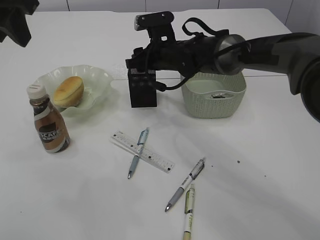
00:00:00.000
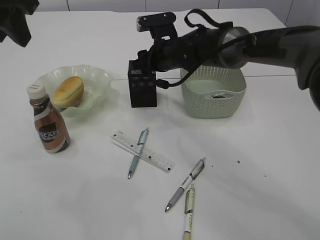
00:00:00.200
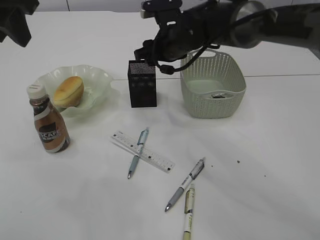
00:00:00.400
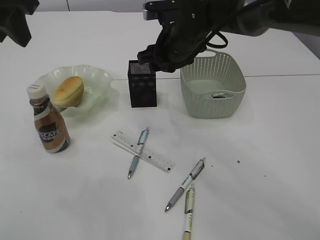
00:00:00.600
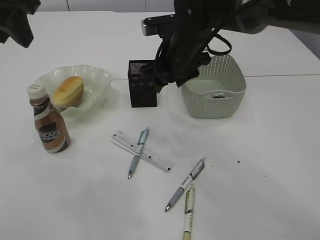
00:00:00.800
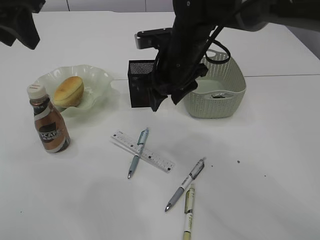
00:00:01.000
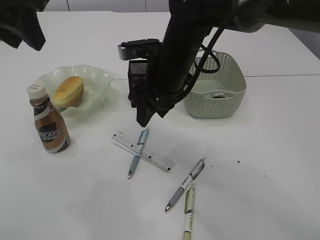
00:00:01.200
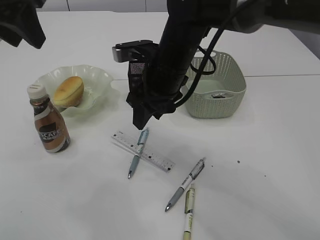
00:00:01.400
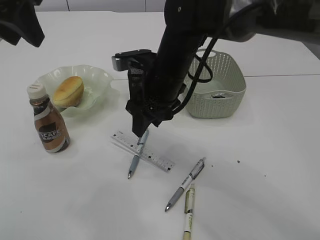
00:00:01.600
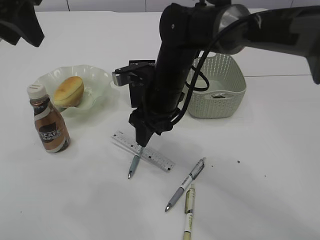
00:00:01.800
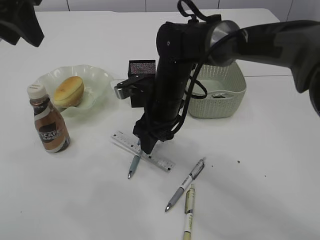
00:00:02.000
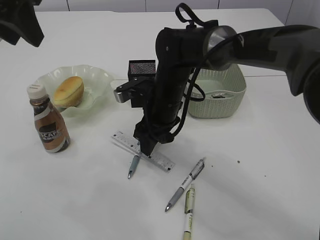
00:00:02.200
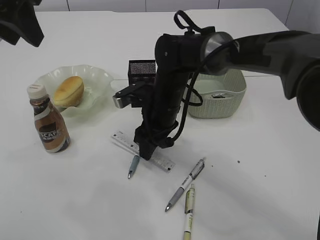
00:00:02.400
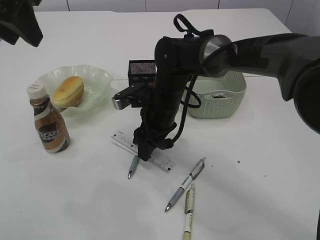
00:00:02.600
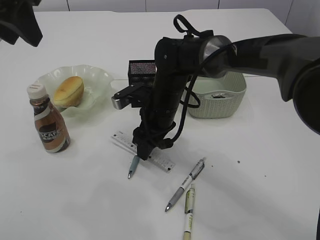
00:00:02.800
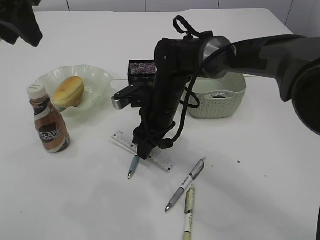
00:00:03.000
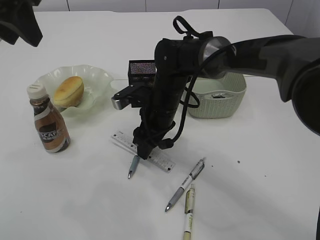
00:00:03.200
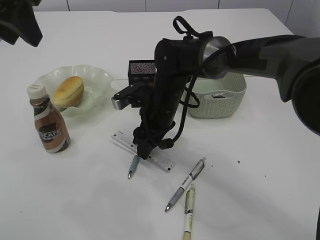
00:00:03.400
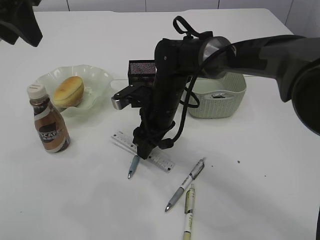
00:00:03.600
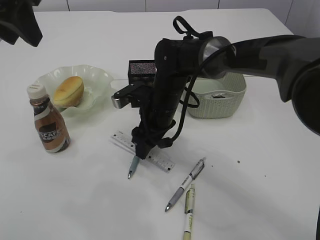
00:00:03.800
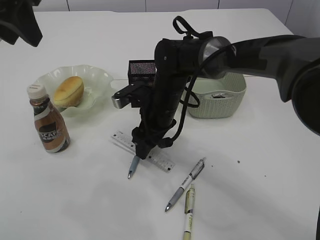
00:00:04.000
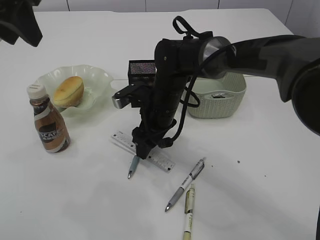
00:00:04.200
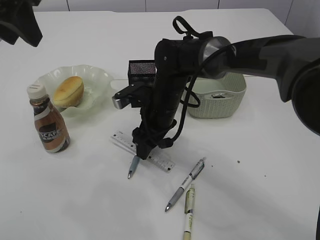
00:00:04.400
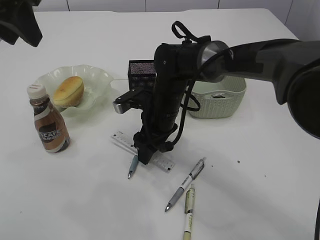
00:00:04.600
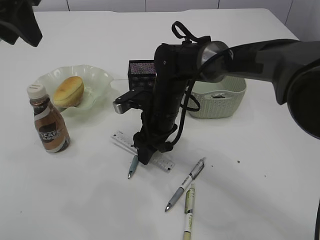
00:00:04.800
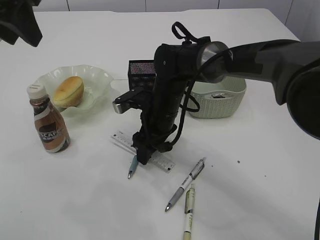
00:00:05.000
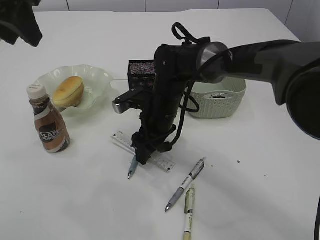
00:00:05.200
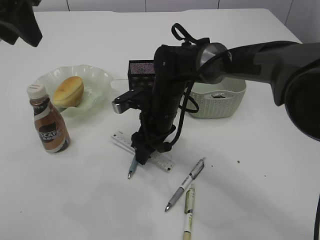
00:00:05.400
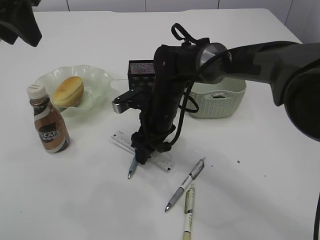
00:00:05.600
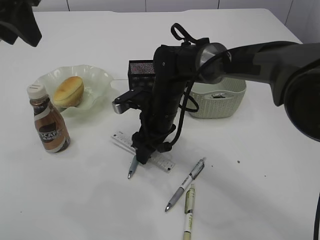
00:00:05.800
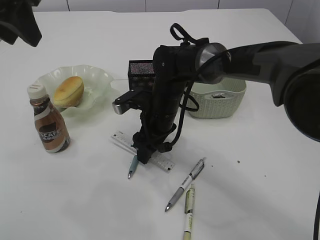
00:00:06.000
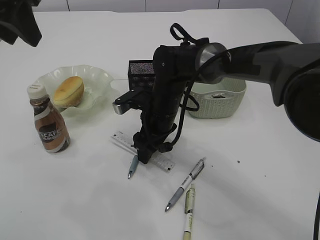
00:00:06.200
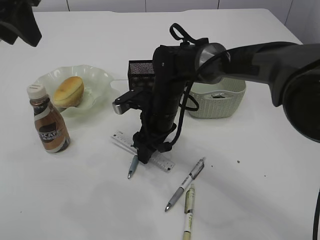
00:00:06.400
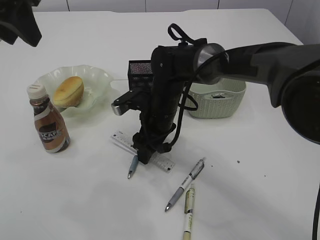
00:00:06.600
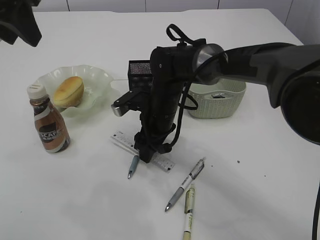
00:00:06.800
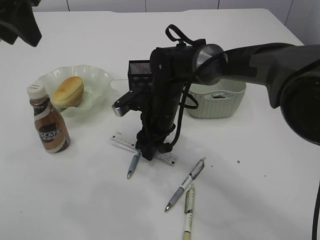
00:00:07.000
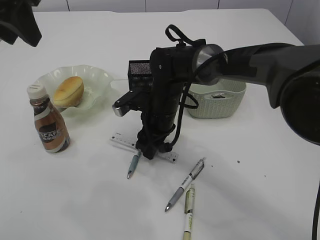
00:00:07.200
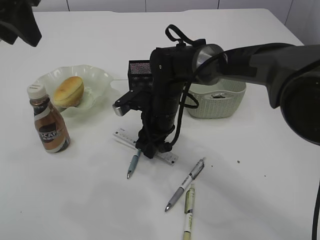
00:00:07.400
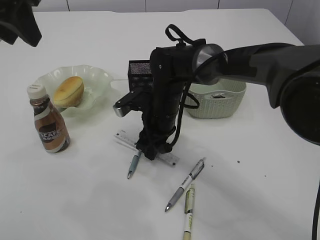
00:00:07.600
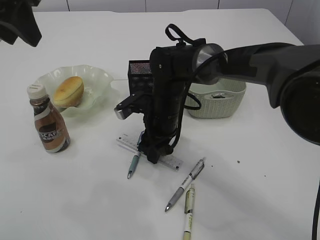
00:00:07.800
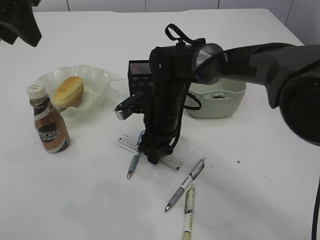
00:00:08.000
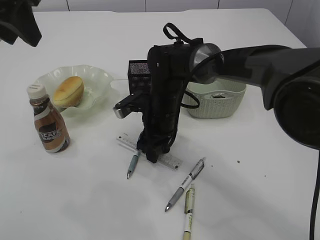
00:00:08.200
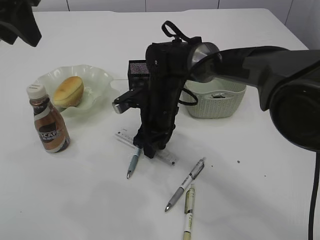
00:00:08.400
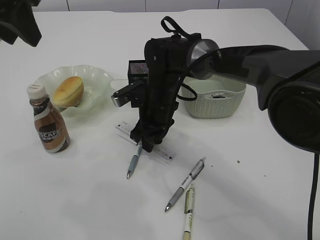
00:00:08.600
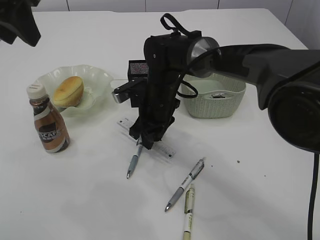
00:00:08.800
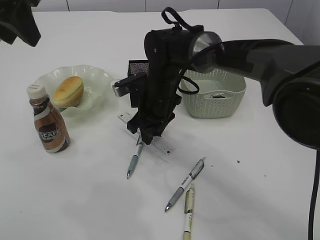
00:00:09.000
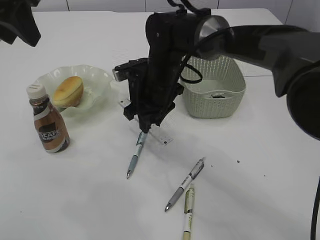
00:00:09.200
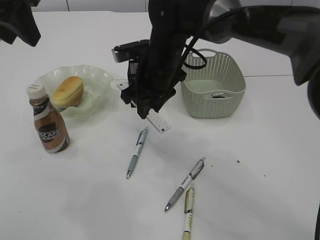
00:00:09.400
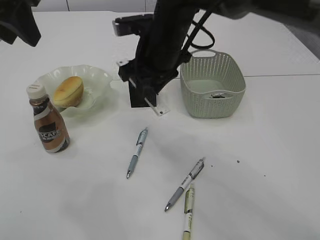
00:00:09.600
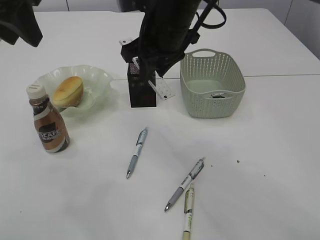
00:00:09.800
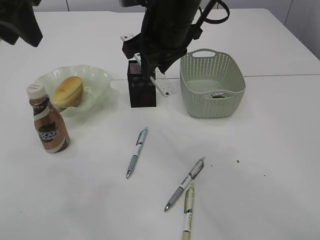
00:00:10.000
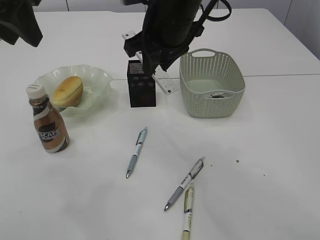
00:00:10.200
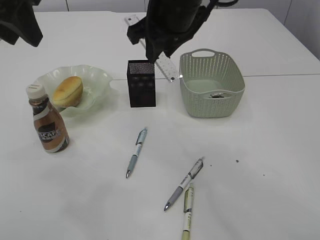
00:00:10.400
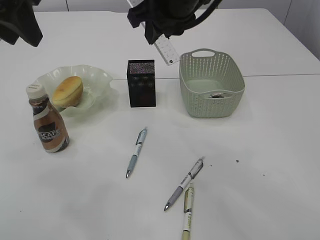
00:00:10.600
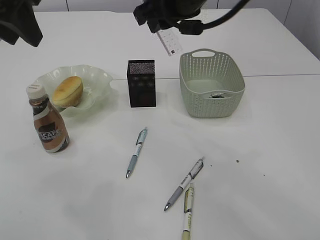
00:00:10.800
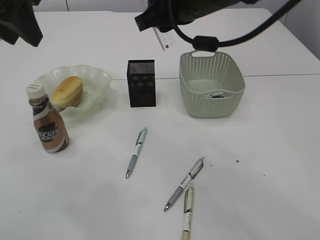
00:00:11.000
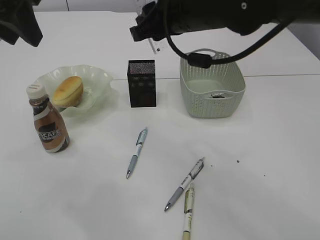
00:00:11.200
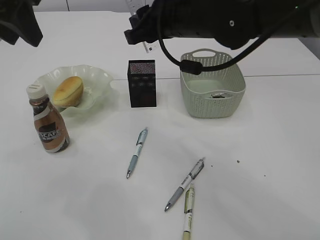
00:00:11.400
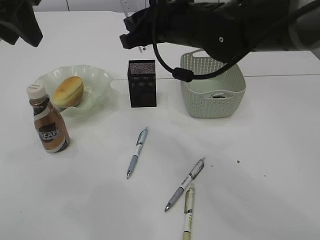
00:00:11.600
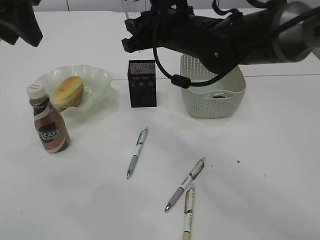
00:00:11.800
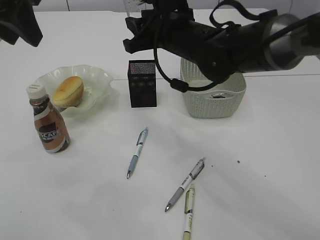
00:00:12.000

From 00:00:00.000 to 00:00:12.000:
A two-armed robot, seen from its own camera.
Step, from 00:00:00.400 to 00:00:09.000: pick up the ruler.
From 00:00:00.000 to 00:00:01.600: The right gripper shifts about 10 cm backward.
From 00:00:01.600 to 00:00:03.000: The right gripper heads downward, covering roughly 10 cm.
From 00:00:03.000 to 00:00:06.000: The two grippers keep their place.
From 00:00:06.000 to 00:00:07.600: The right gripper closes.
From 00:00:07.600 to 00:00:09.000: There are only small adjustments of the grippers.
From 00:00:09.000 to 00:00:10.400: The right gripper heads upward, covering some 20 cm.
From 00:00:10.400 to 00:00:12.000: The right gripper shifts roughly 5 cm downward.

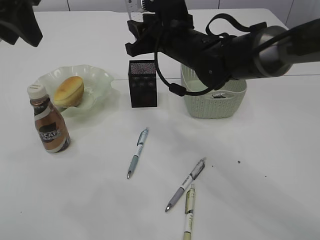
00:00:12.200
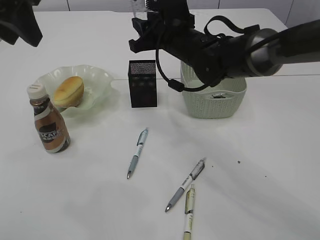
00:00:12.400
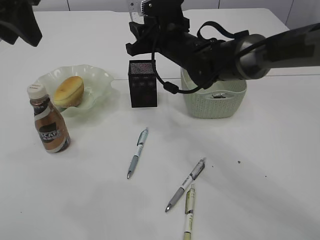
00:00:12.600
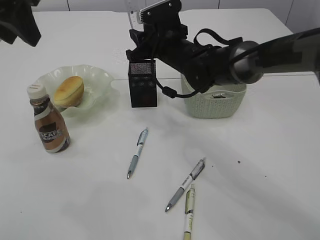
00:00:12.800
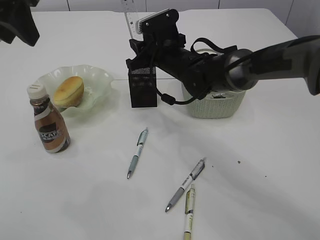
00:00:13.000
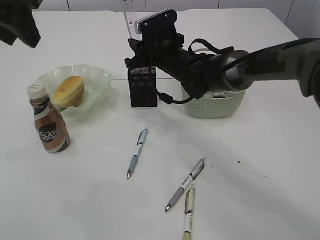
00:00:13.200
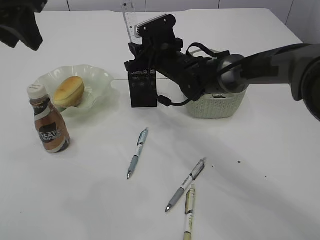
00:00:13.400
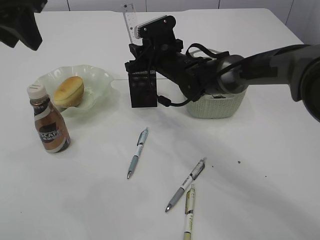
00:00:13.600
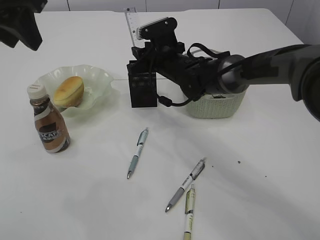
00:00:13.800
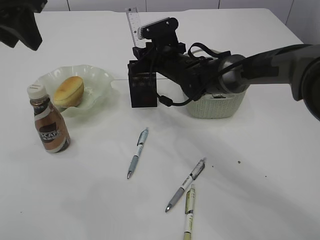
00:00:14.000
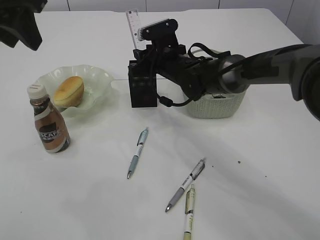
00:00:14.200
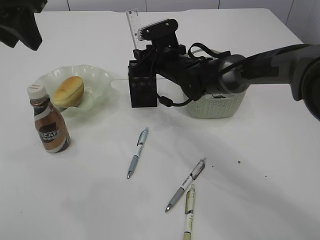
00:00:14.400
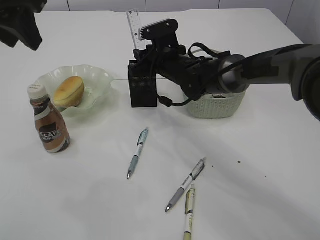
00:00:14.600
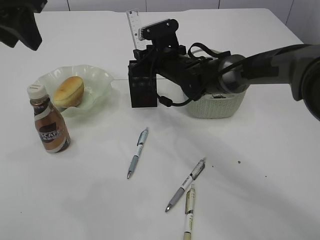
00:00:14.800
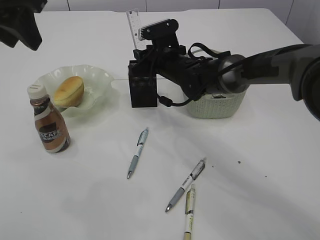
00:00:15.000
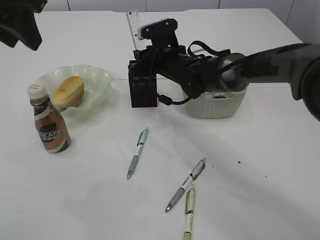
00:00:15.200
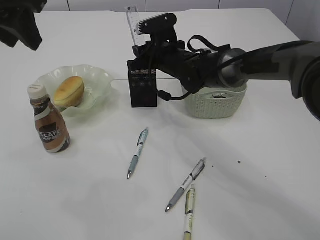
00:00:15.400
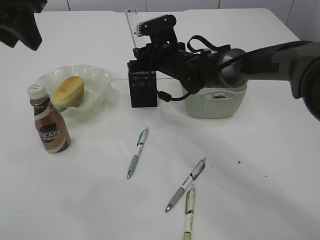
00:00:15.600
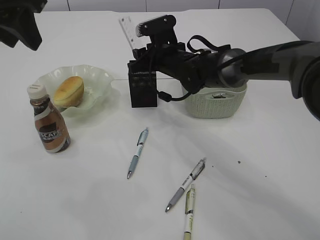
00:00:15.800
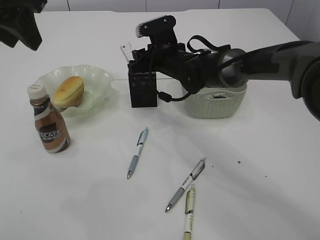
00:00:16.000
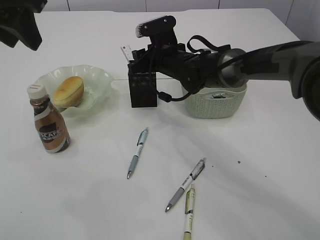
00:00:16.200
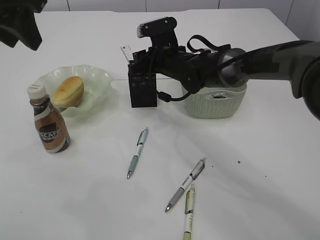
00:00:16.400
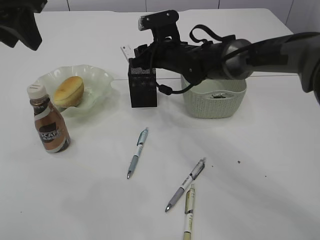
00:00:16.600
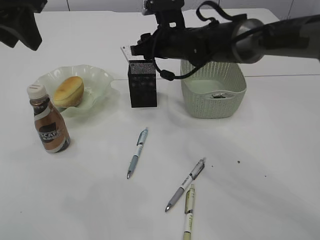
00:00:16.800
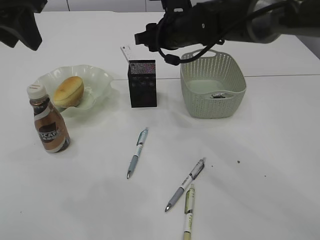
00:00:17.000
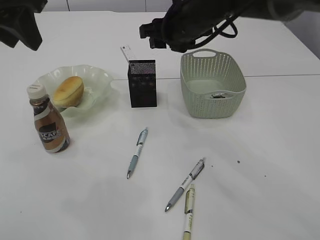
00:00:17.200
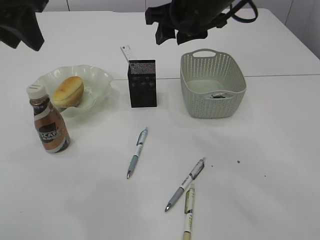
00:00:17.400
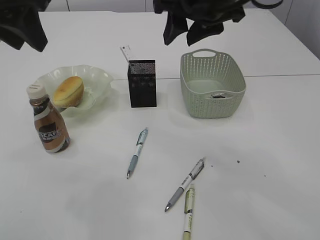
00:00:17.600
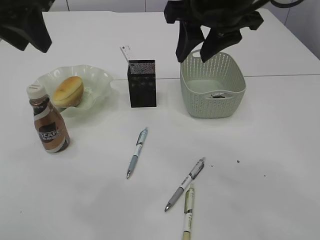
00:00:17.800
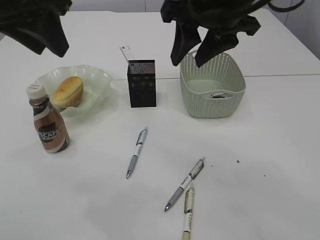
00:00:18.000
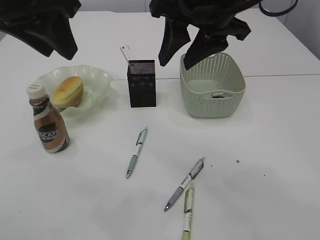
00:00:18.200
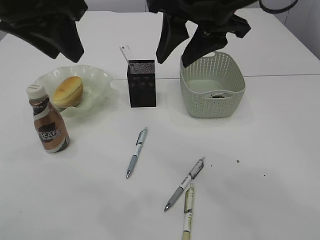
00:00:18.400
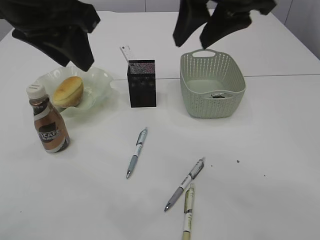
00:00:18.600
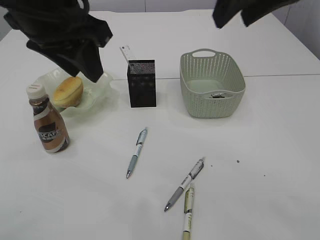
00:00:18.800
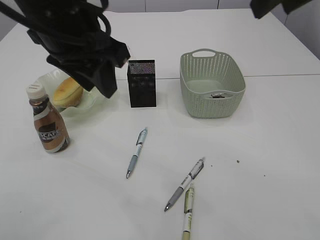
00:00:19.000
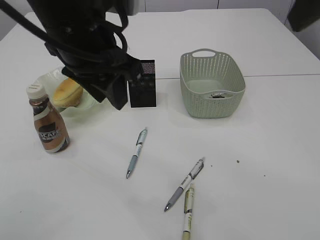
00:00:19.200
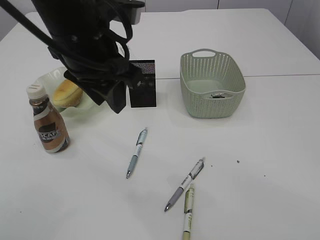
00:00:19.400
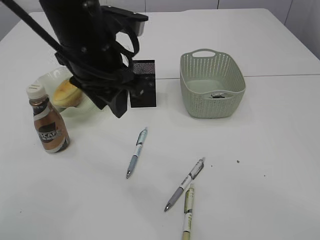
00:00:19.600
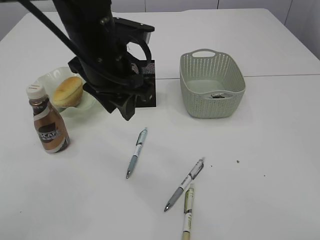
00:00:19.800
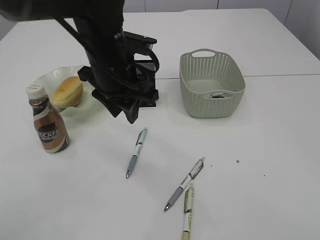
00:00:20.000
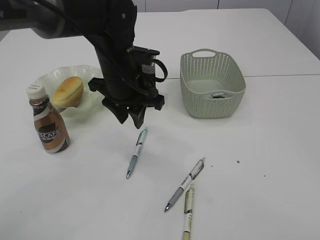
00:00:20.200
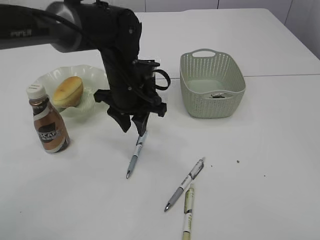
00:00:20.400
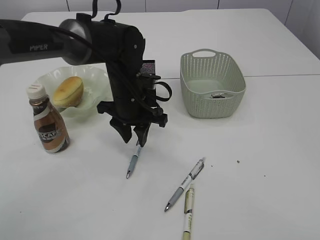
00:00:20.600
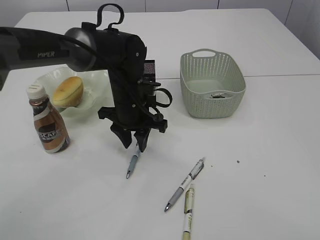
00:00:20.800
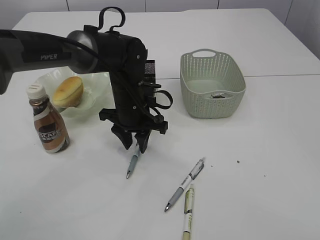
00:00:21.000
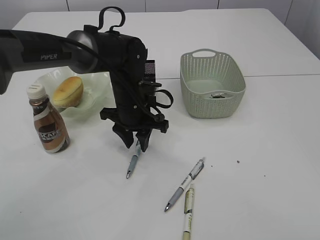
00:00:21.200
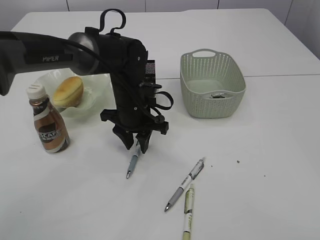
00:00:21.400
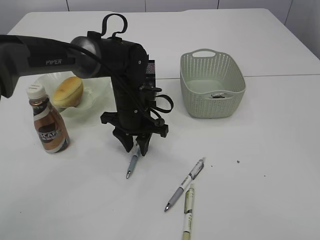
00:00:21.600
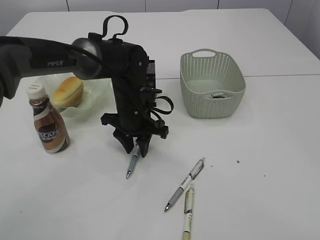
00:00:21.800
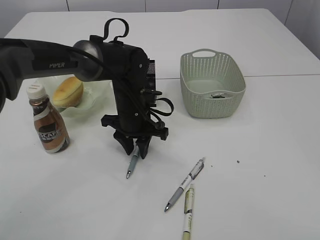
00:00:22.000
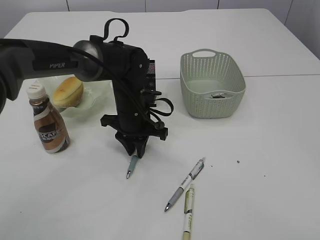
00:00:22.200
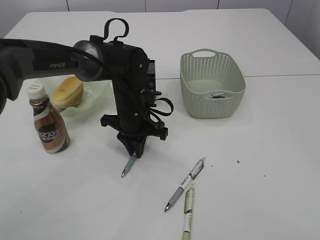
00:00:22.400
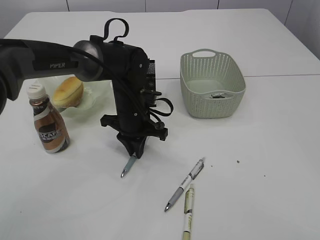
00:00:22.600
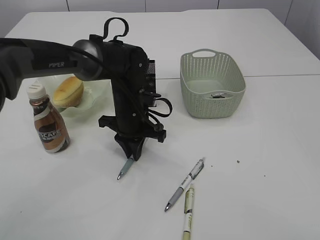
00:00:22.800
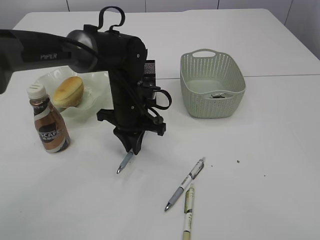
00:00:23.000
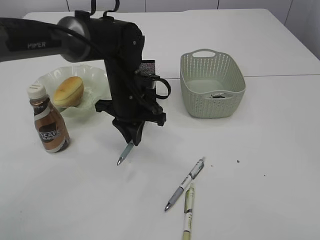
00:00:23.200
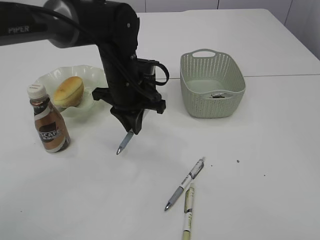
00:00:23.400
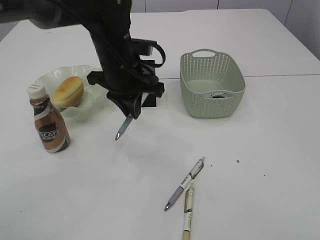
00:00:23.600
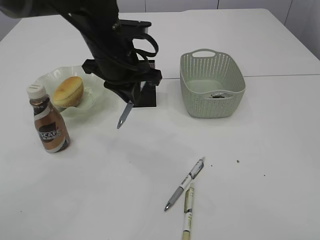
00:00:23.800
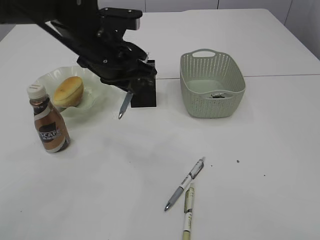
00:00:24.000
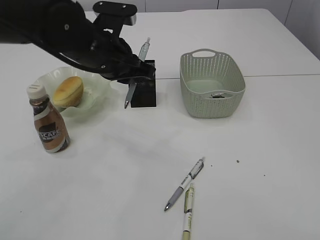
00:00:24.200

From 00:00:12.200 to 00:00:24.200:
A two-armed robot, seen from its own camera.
Step, from 00:00:12.200 to 00:00:16.400: Place the ruler into the pen holder.
Step, from 00:00:16.600 to 00:00:23.600: Pick up the pen with left arm.
From 00:00:12.200 to 00:00:13.800: The right gripper moves downward and forward, roughly 10 cm.
From 00:00:13.800 to 00:00:15.200: Both grippers stay put.
From 00:00:15.200 to 00:00:16.600: The grippers move only a little.
From 00:00:16.600 to 00:00:18.200: The right gripper heads upward and backward, covering some 25 cm.
From 00:00:18.200 to 00:00:19.800: The right gripper heads backward and to the right, covering about 30 cm. The left gripper shifts about 15 cm downward and to the right.
From 00:00:19.800 to 00:00:21.200: The left gripper is displaced downward and forward by some 15 cm.
From 00:00:21.200 to 00:00:22.600: The left gripper closes.
From 00:00:22.600 to 00:00:24.200: The left gripper shifts about 15 cm upward.
